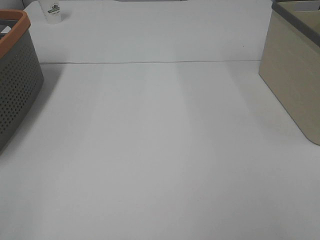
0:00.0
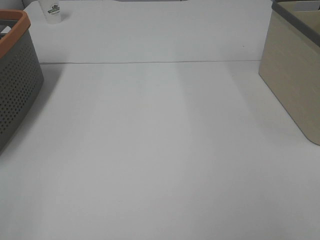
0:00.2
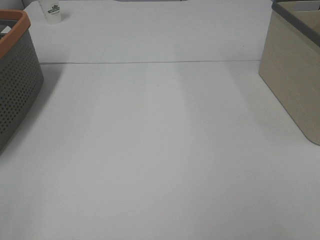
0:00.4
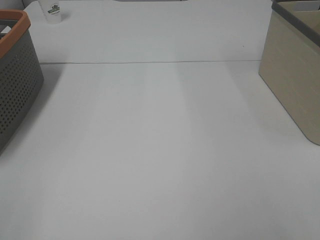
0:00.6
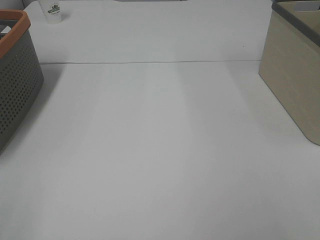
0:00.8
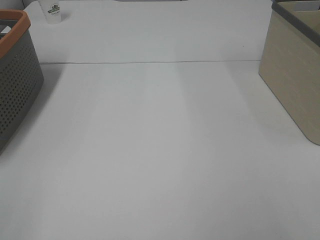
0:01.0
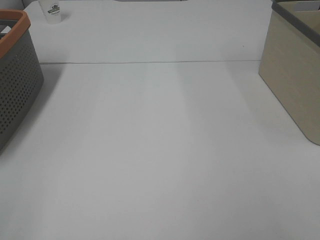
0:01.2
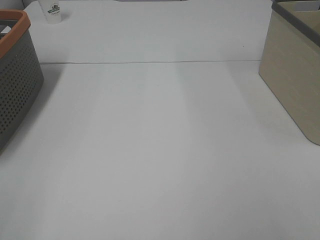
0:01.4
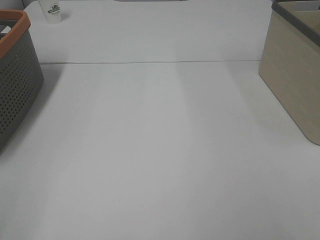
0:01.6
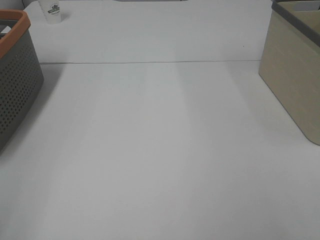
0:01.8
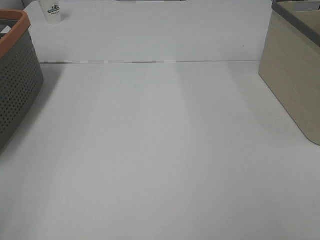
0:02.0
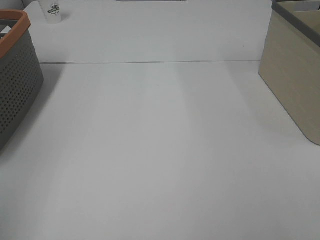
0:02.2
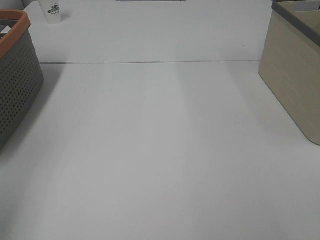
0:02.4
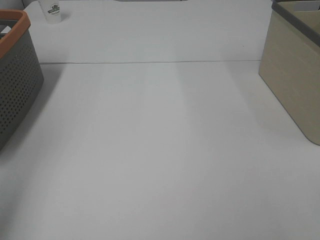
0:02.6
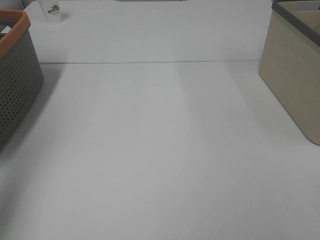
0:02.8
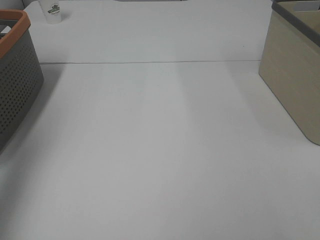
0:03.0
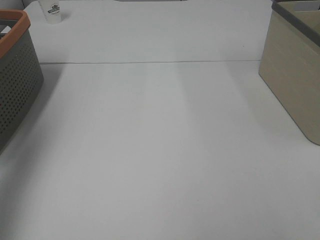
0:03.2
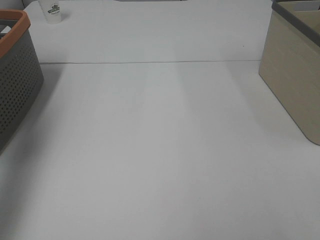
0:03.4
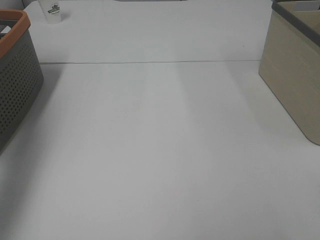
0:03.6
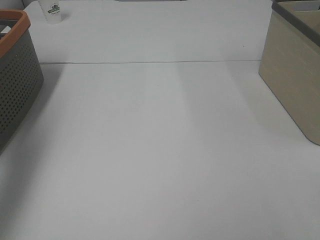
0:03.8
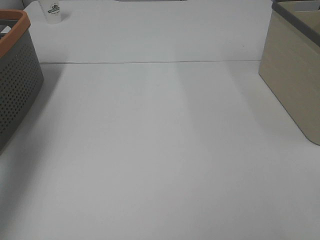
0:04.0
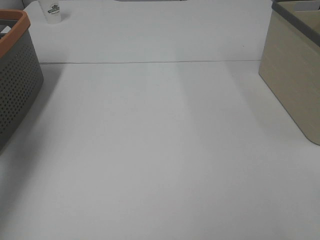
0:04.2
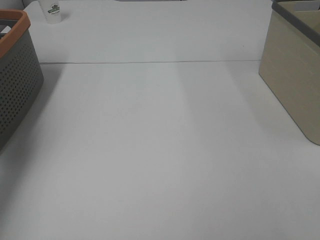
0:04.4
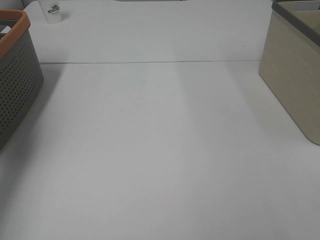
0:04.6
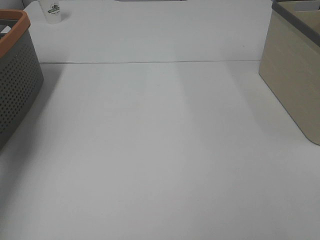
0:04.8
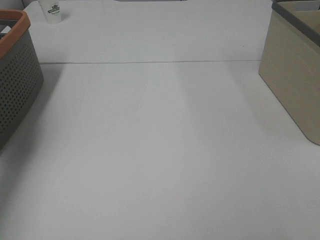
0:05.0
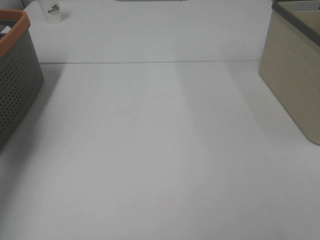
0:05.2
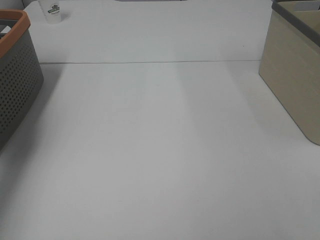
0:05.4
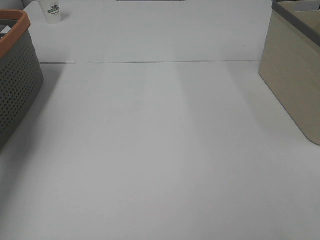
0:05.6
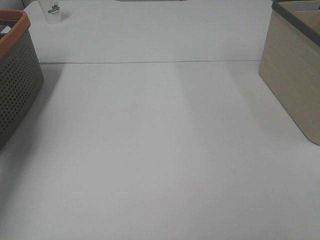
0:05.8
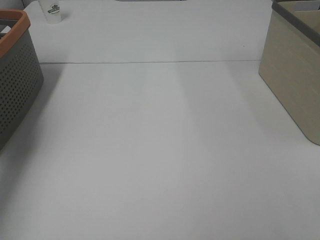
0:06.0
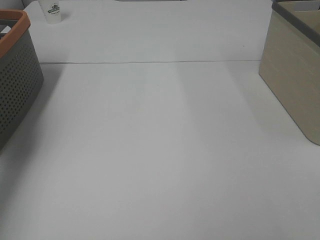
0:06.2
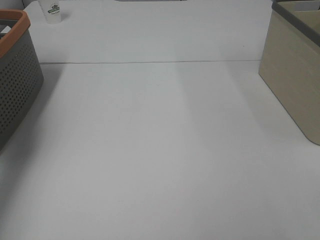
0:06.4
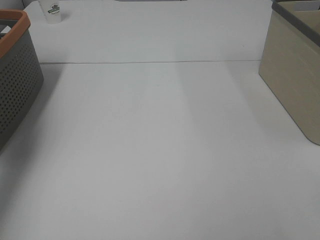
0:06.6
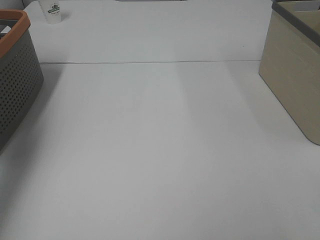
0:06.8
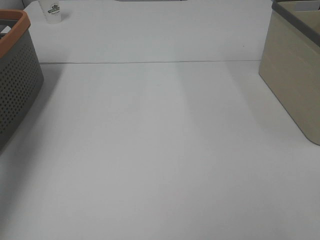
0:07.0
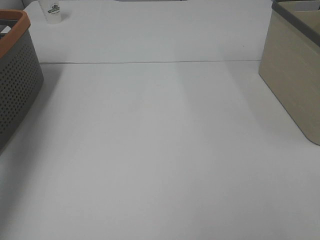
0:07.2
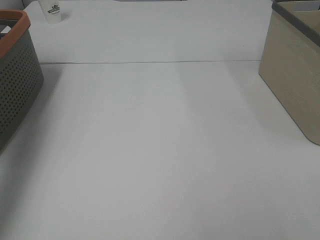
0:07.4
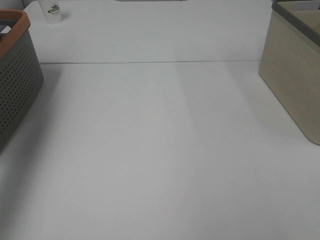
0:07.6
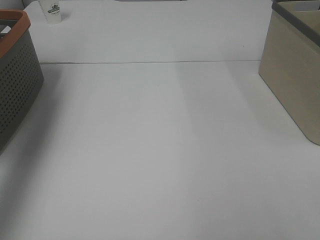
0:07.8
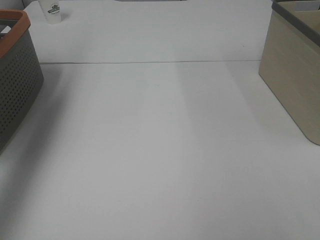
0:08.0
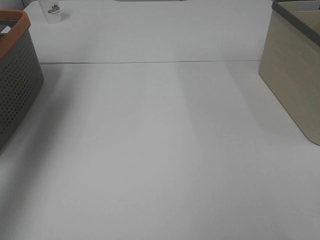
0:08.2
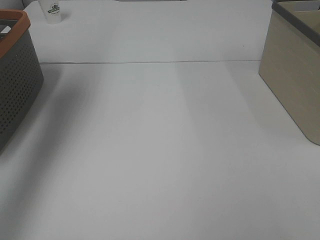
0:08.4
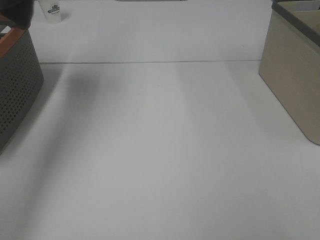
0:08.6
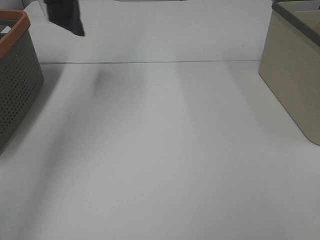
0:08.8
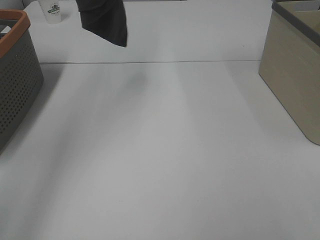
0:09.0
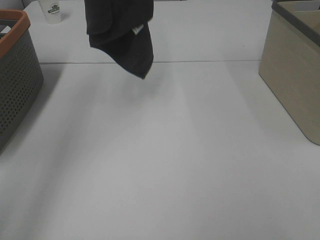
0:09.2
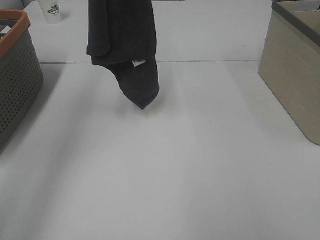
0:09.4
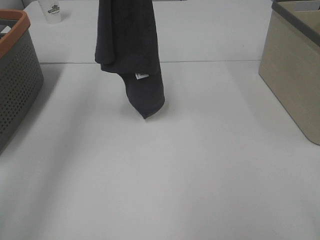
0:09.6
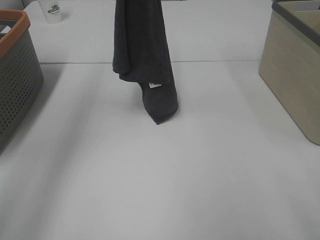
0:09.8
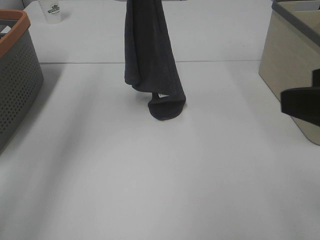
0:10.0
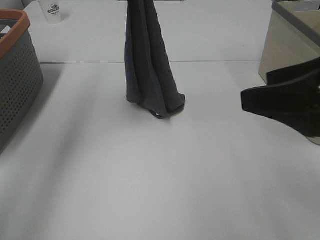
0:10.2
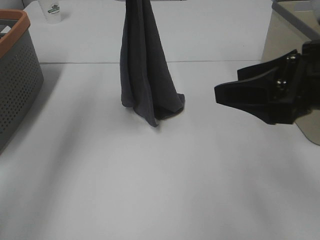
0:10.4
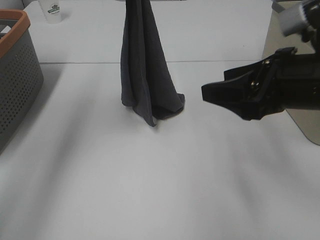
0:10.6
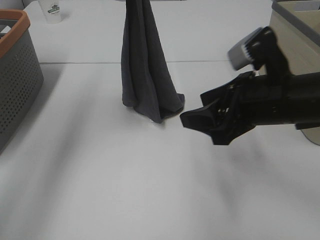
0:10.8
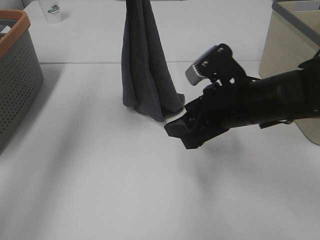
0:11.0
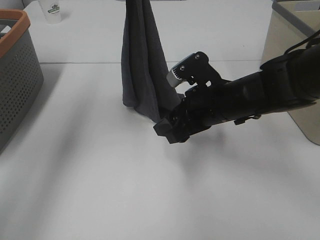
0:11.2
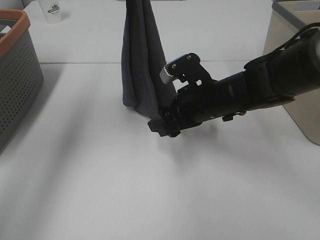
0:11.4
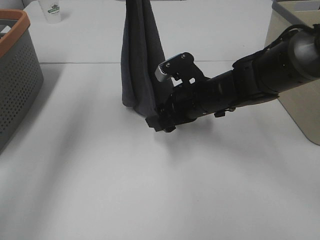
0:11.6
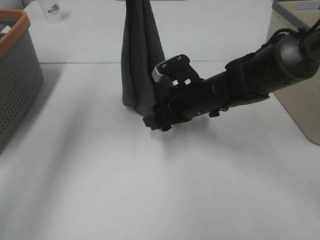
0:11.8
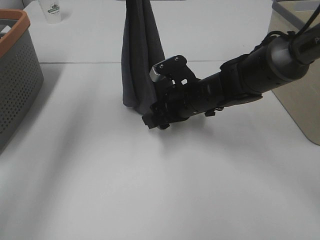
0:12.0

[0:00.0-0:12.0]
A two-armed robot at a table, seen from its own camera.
Task of the whole recording: Remove the towel and place it.
Step, 0:08.2 to 0:11.4: Right hand: grab a corner of the grey towel and straighten it.
0:01.6 to 0:03.0: The left gripper is displaced forward and upward by some 20 cm.
0:06.0 to 0:07.6: The left gripper shifts approximately 25 cm upward.
0:07.6 to 0:09.0: The left gripper travels to the right by roughly 15 cm.
0:09.0 to 0:10.4: The right gripper is displaced forward and to the left by about 20 cm, while the left gripper travels downward by roughly 15 cm.
0:10.4 to 0:12.0: The right gripper travels forward, downward and to the left by approximately 25 cm.

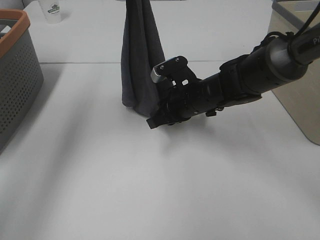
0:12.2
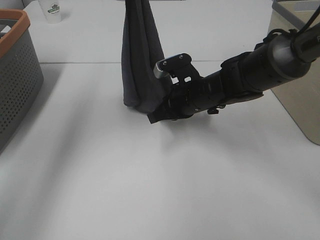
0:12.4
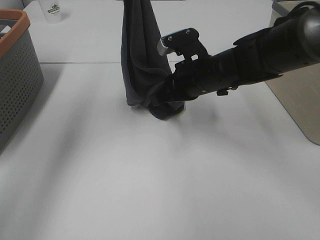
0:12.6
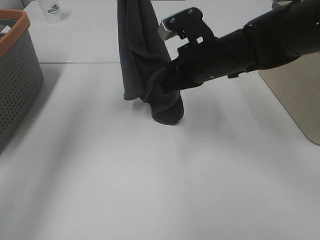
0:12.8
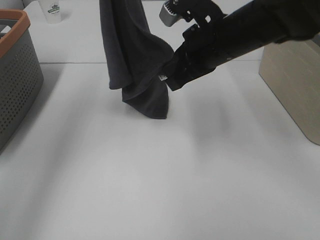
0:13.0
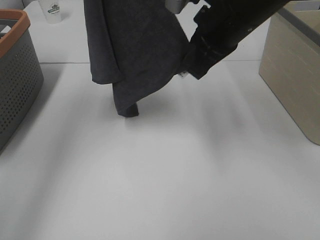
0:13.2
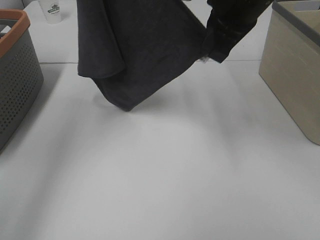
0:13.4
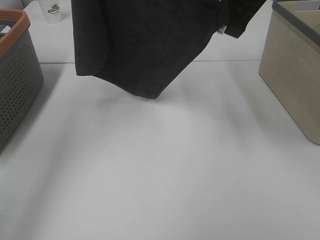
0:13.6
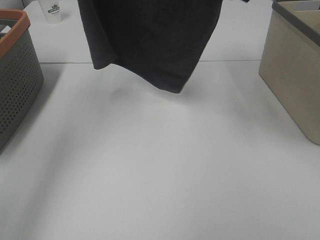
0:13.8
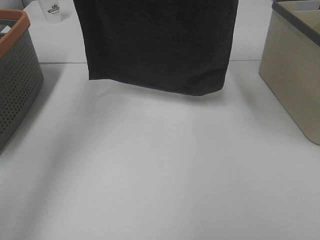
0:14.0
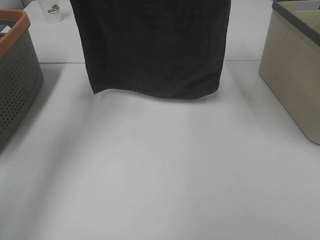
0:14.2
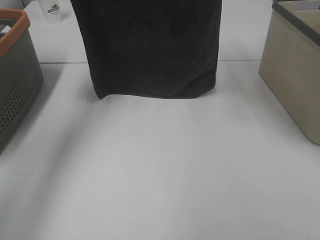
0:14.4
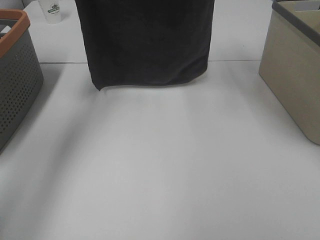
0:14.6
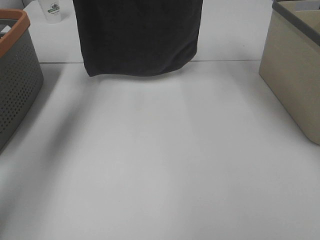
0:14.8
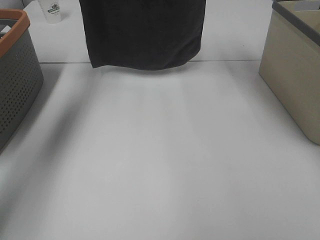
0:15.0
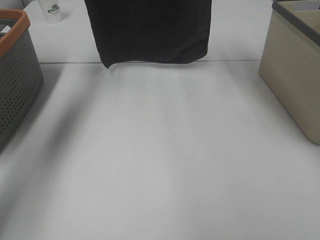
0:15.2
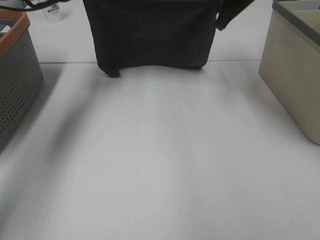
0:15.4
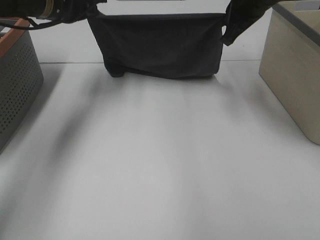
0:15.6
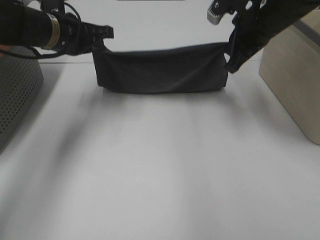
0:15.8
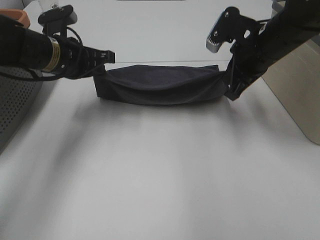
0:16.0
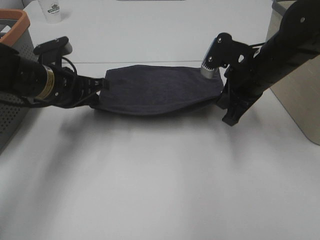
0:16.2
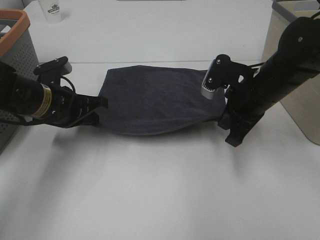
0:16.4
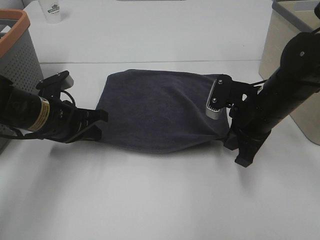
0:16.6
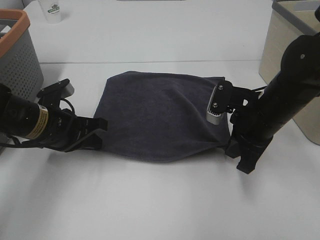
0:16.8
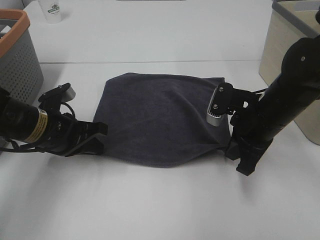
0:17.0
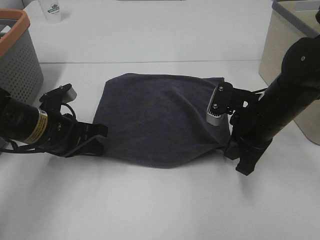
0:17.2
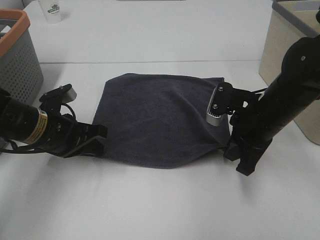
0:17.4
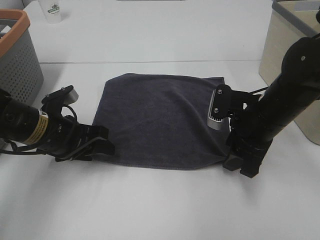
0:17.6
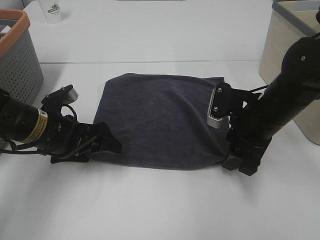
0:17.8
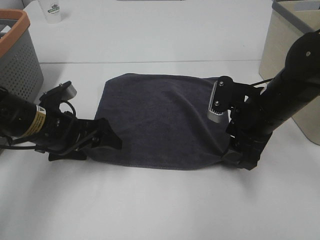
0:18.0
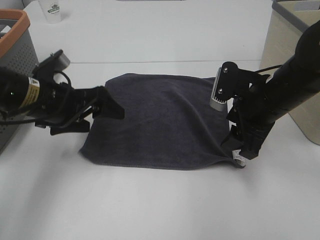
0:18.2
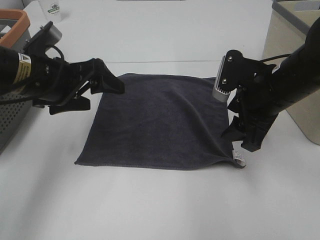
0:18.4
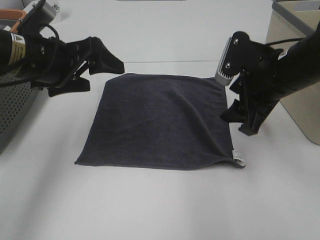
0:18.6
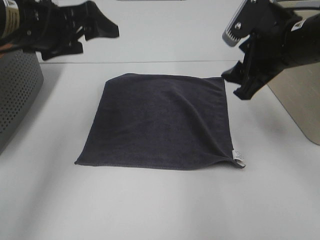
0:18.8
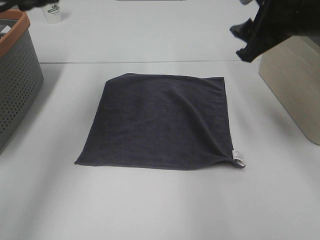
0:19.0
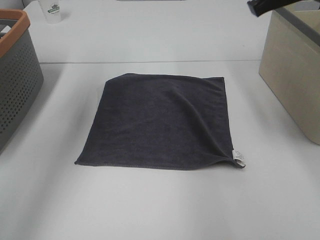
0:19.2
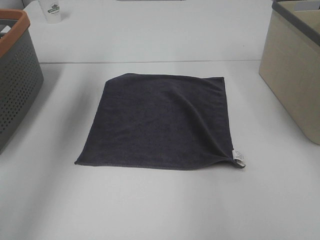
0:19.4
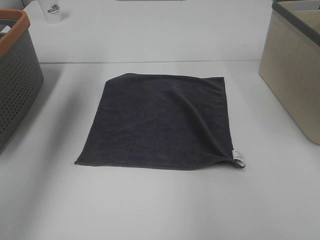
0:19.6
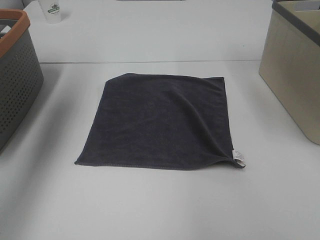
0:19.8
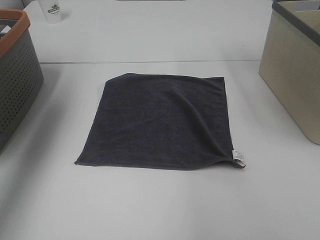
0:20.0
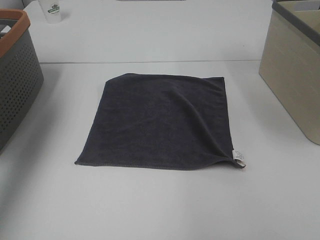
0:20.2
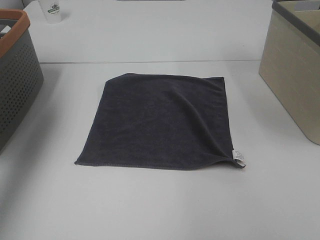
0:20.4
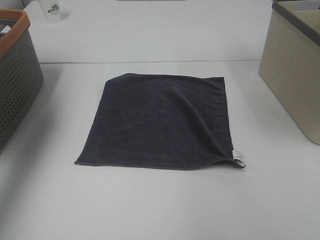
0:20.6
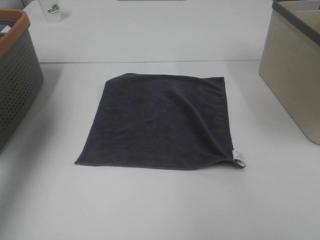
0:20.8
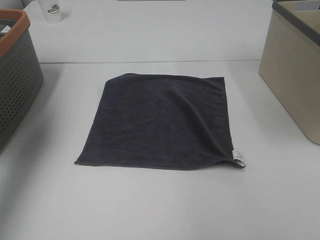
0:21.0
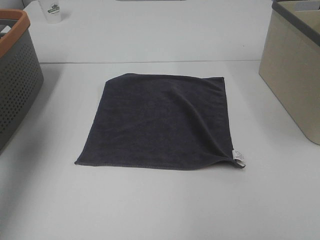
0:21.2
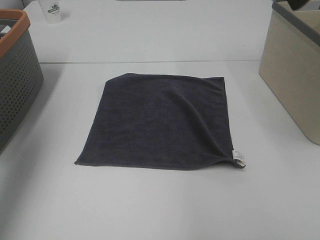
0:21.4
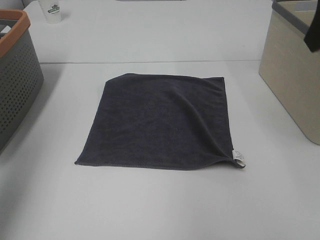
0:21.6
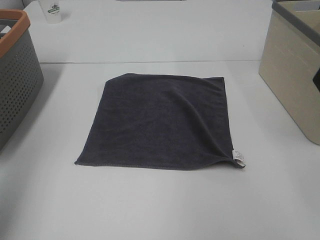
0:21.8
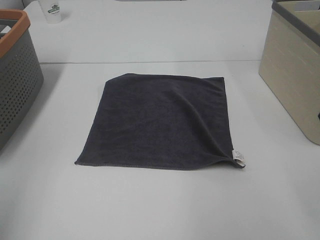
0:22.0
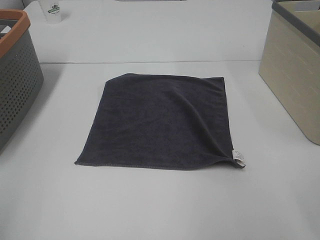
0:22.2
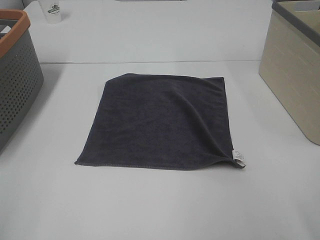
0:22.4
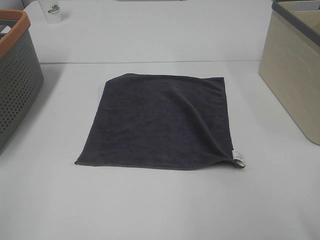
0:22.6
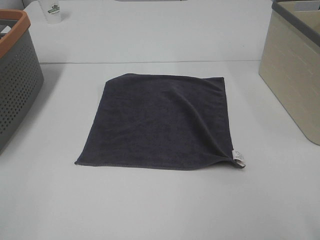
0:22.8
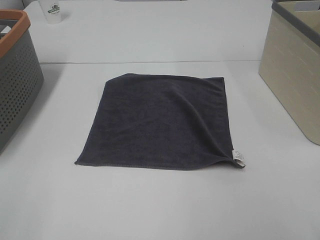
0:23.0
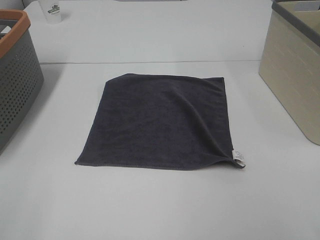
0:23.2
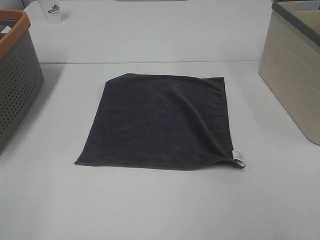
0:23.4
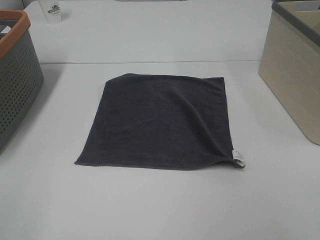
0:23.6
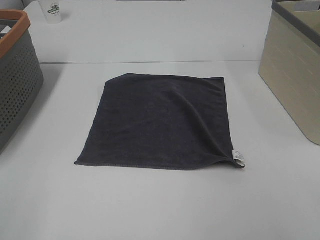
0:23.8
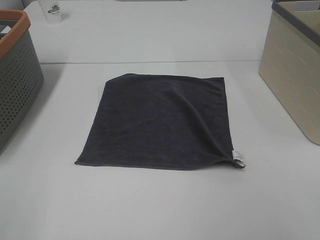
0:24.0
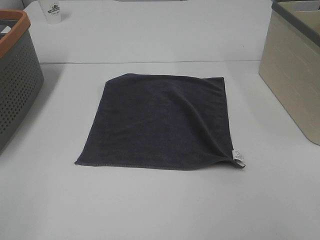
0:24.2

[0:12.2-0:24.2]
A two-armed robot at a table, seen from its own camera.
Task of the whole recording: Remove the towel and place it.
Step, 0:12.2 to 0:14.0: Right hand: spread the grey towel flat on the table.
Step, 0:12.2 to 0:14.6: Left hand: spread the grey towel flat on the table.
0:12.2 to 0:13.8: The left gripper moves upward, some 5 cm, while the right gripper moves upward, roughly 30 cm.
0:13.8 to 0:15.2: The right gripper goes some 10 cm forward. Meanwhile the left gripper moves forward and downward, some 15 cm.
0:15.2 to 0:16.6: Both grippers move downward and backward, approximately 25 cm.
0:16.6 to 0:18.2: The left gripper goes some 5 cm upward, and opens up. The right gripper opens.
0:18.2 to 0:19.8: The right gripper travels upward by about 25 cm. The left gripper heads upward and to the left, covering some 30 cm.
0:19.8 to 0:21.2: The left gripper moves backward, approximately 10 cm.
0:21.2 to 0:22.6: Both grippers travel together backward and downward, approximately 25 cm.
